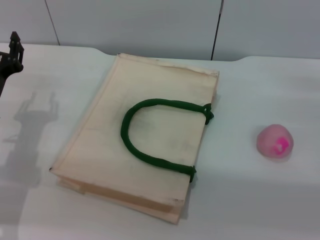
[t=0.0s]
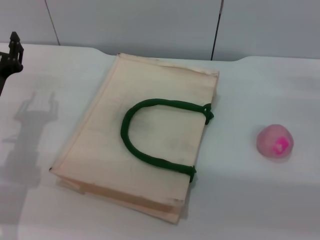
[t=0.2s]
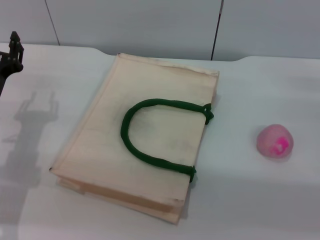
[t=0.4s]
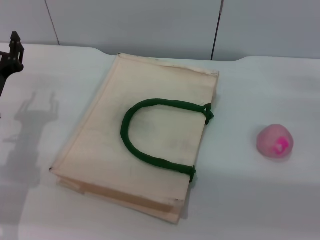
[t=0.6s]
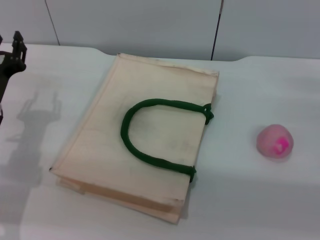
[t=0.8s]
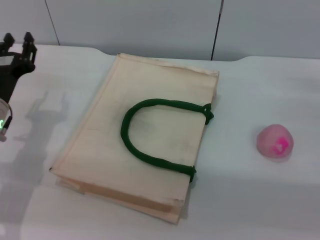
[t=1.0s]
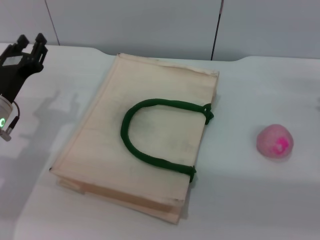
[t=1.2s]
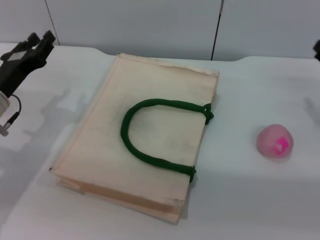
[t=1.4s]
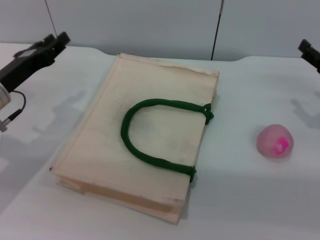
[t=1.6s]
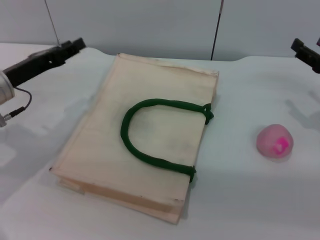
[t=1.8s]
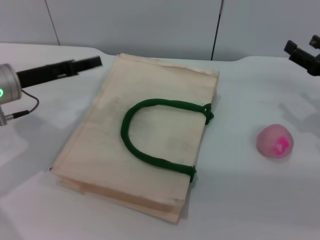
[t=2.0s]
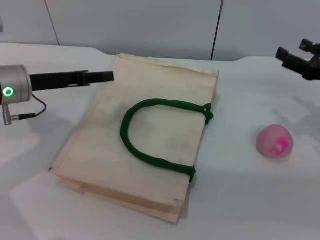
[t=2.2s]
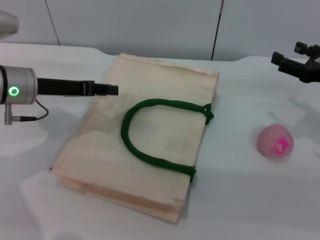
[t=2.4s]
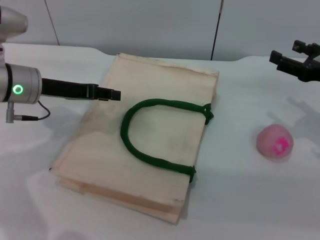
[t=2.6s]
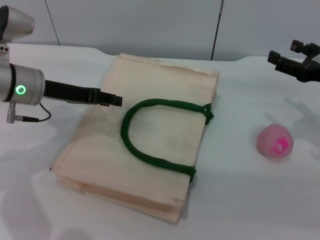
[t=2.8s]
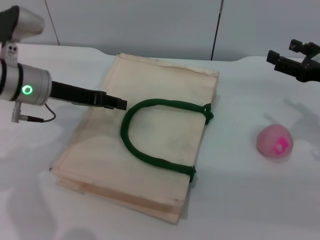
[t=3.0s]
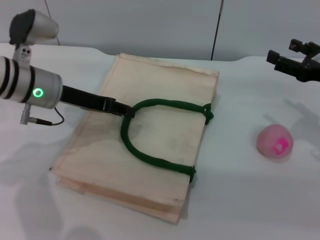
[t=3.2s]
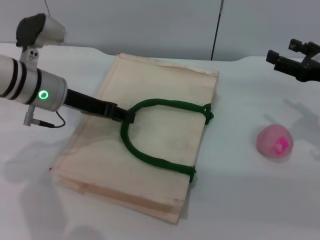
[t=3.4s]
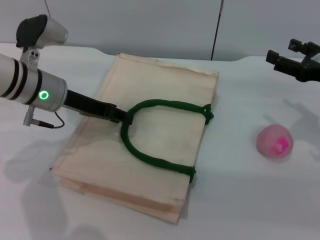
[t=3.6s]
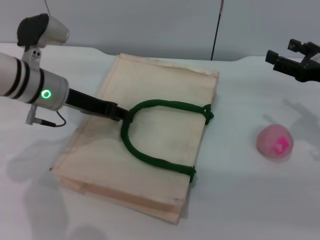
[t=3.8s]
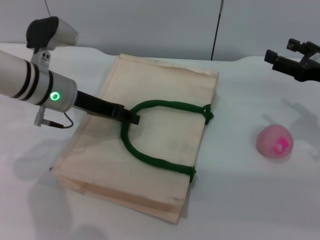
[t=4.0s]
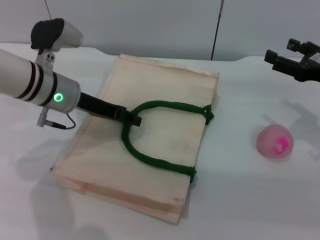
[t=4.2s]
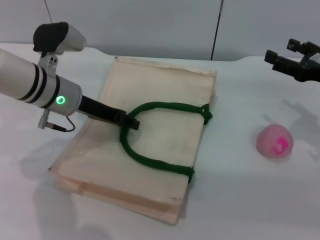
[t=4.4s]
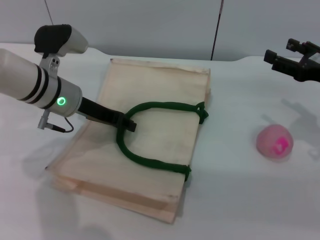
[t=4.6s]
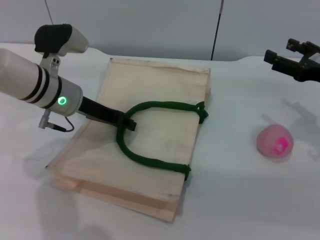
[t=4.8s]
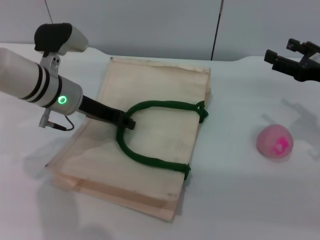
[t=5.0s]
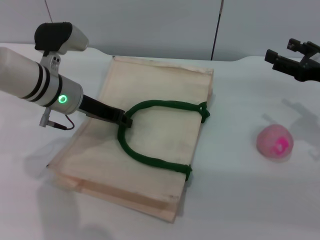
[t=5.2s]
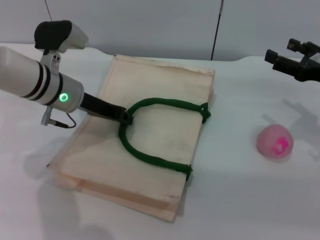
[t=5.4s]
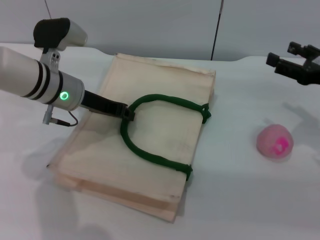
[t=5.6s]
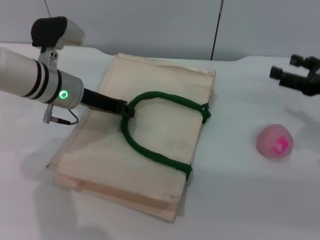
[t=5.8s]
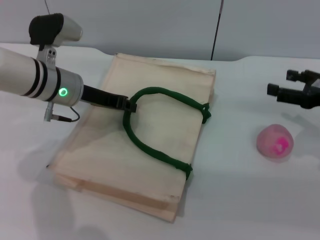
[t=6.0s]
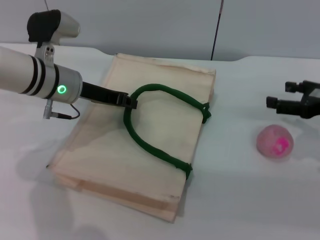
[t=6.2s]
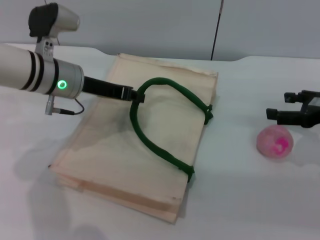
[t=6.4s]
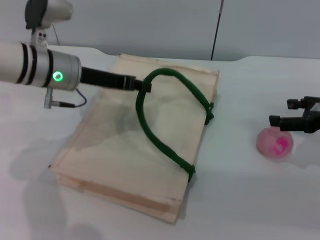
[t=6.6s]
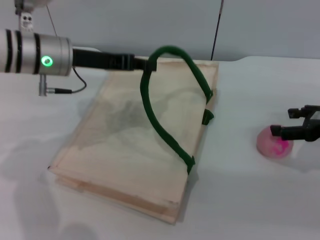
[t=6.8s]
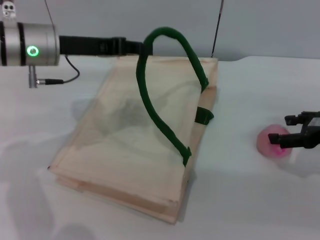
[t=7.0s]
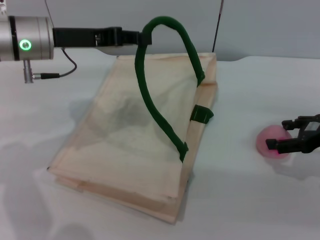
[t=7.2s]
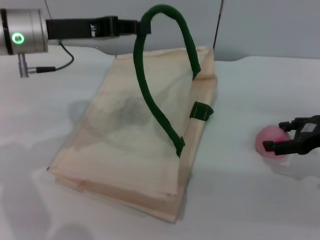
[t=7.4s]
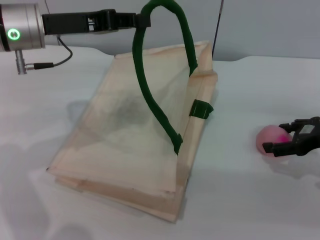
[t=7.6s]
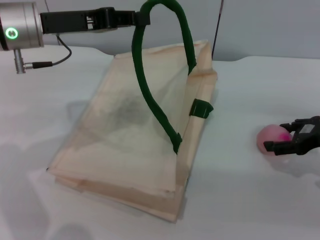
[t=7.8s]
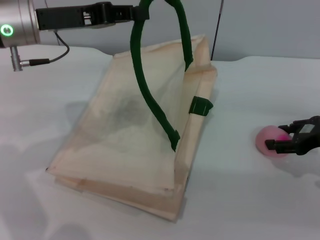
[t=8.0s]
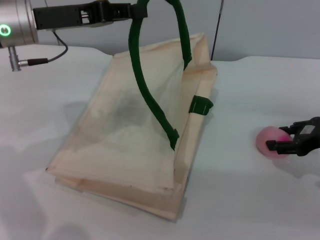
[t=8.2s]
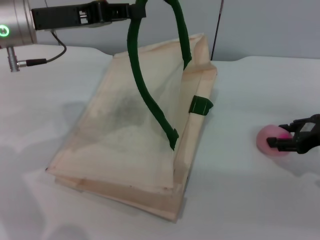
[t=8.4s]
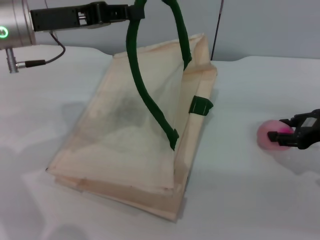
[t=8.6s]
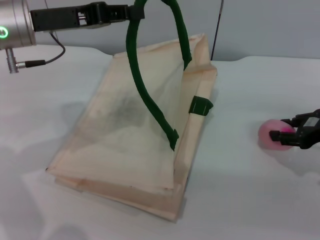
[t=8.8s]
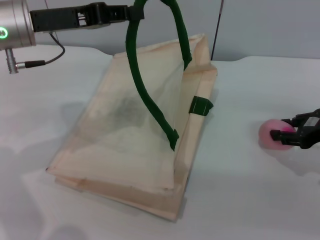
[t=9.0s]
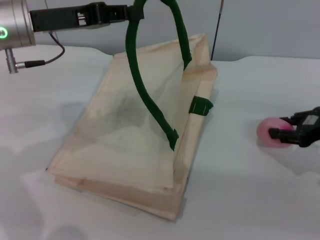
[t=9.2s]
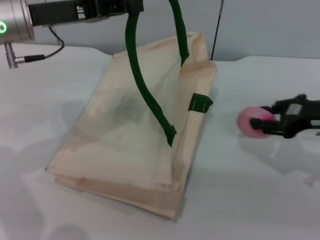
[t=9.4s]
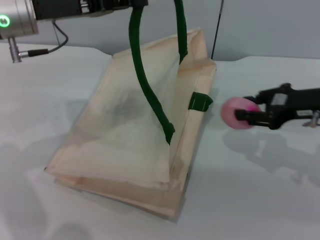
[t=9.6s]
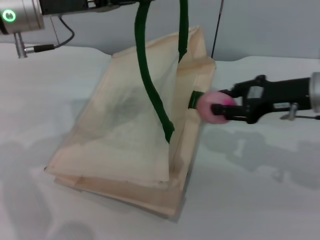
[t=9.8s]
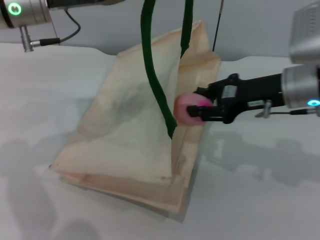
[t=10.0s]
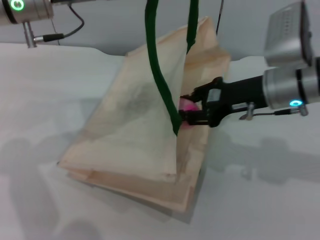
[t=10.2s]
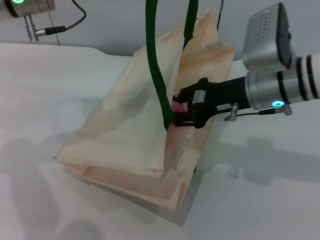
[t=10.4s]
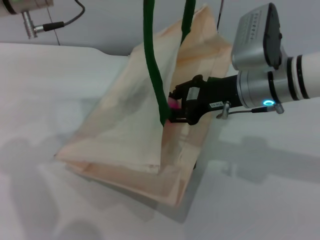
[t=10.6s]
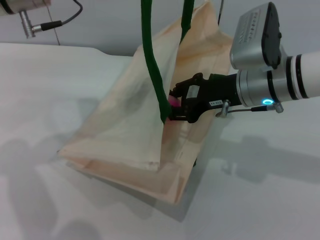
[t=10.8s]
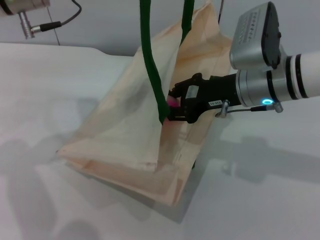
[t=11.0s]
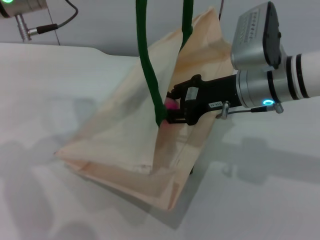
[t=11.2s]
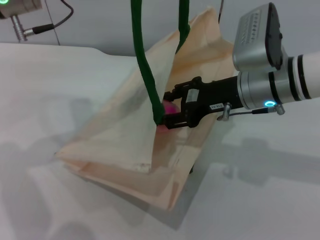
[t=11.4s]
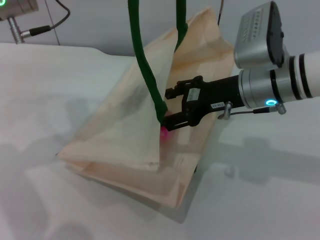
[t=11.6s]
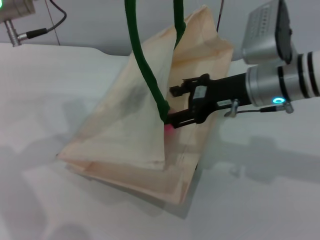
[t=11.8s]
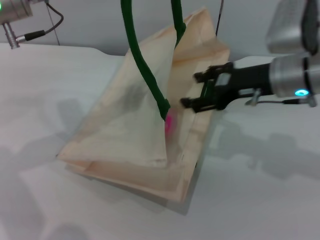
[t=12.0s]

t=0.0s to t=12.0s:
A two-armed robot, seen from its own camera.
Task of the whole recording: pick up the peach from the table and place it in the white handbag.
Step, t=0.0s to t=5.2s: Lift the woven bag with the left gripper to open it.
Step, t=5.4s to t=9.2s: Pick up the peach with the right gripper.
Step, t=9.4s to t=11.8s: Place the peach into the woven bag with the right gripper.
t=1.6s to t=3.0s: The left gripper moves some 10 cm.
t=3.0s to t=4.4s: The grippers make only small movements.
t=4.4s to t=6.0s: The left gripper closes.
t=6.0s to t=7.6s: The left gripper heads upward, covering roughly 10 cm.
t=7.6s to t=9.0s: The right gripper closes up.
t=9.0s to t=10.4s: The right gripper is displaced to the left by some 15 cm.
t=10.4s to t=12.0s: The right gripper opens.

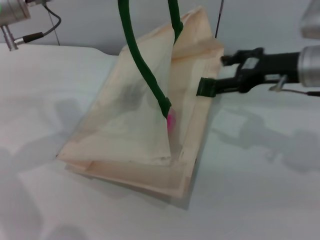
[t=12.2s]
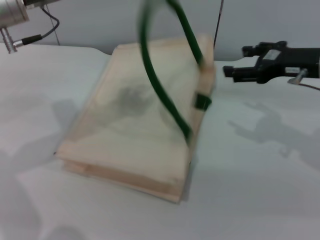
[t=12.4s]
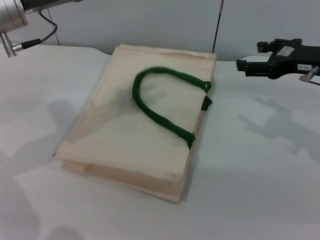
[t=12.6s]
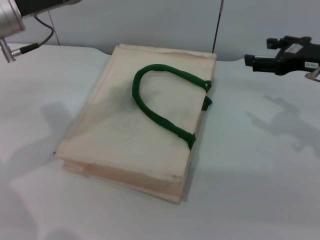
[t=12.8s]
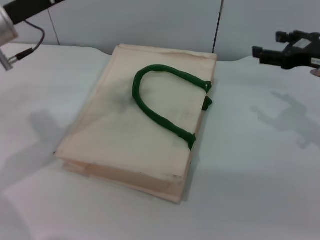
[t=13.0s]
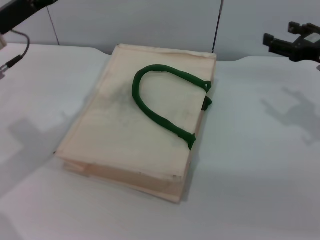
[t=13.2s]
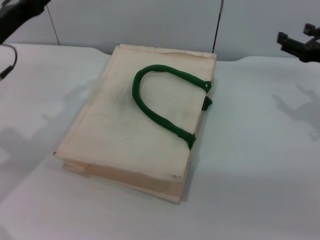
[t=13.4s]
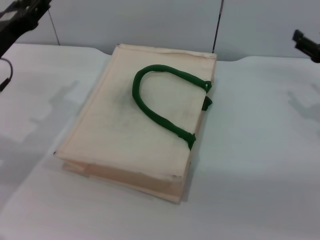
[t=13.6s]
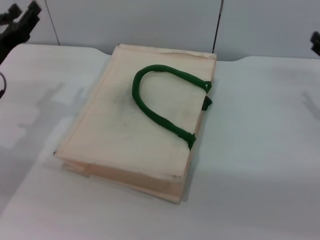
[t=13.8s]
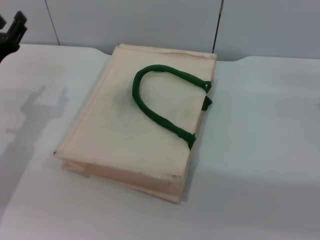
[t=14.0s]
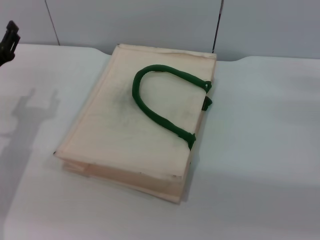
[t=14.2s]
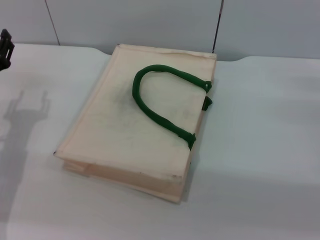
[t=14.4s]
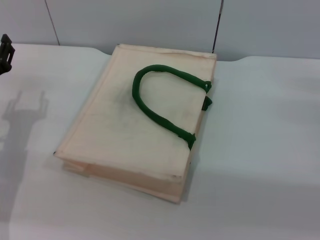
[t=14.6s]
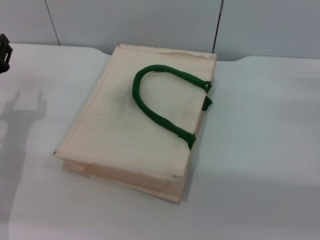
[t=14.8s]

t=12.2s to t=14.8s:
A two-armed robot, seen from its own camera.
Task of the whole recording: pick up the peach from the table and place it in the white handbag.
Step, t=12.2s to t=12.6s: Lower the woven bag with the left gripper to close it.
t=12.2s to t=13.4s: The left gripper moves downward and to the left, about 10 cm, and opens its fingers. Meanwhile the right gripper heads to the right, covering about 10 cm.
t=13.4s to t=14.8s: Both grippers travel together downward, some 5 cm.
